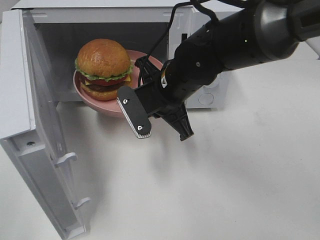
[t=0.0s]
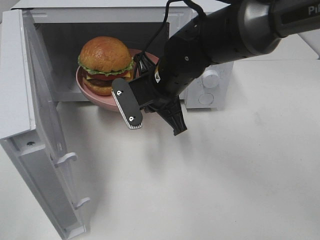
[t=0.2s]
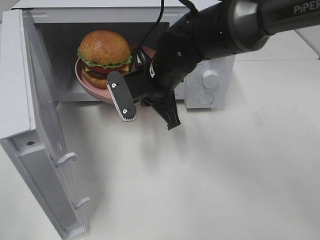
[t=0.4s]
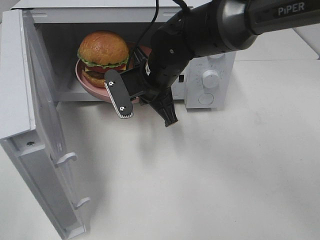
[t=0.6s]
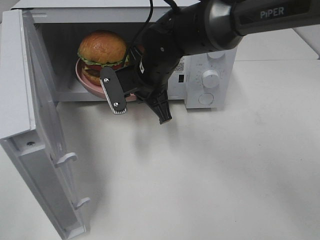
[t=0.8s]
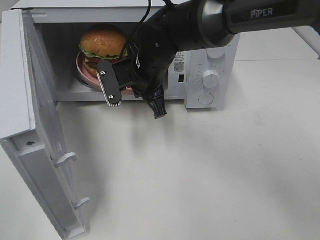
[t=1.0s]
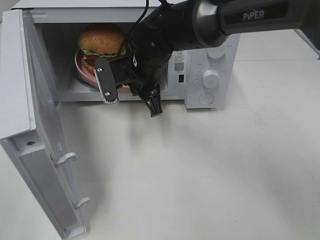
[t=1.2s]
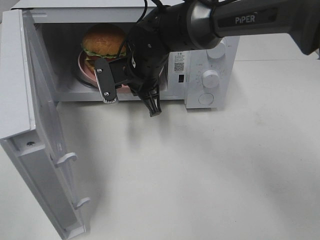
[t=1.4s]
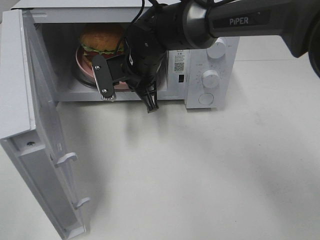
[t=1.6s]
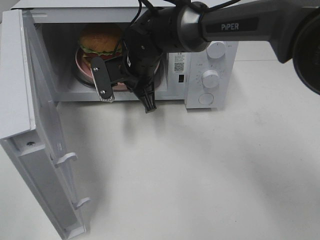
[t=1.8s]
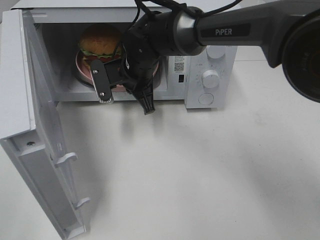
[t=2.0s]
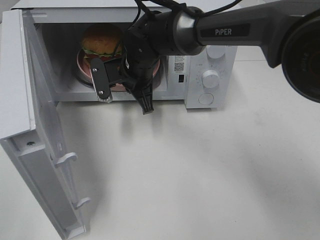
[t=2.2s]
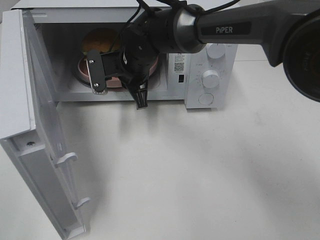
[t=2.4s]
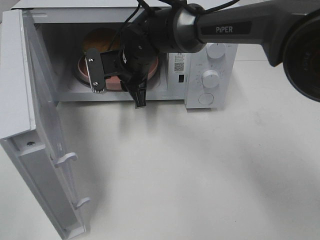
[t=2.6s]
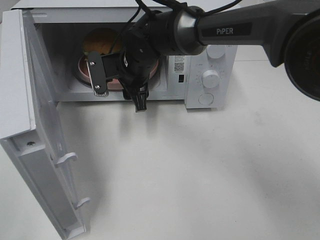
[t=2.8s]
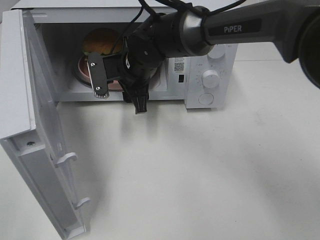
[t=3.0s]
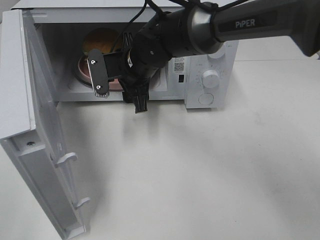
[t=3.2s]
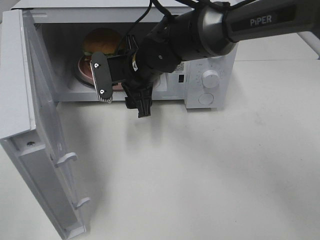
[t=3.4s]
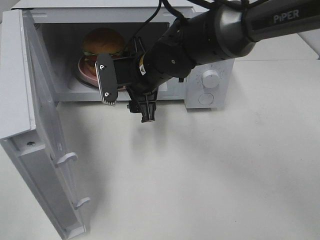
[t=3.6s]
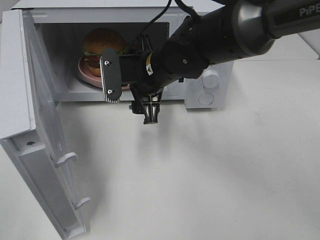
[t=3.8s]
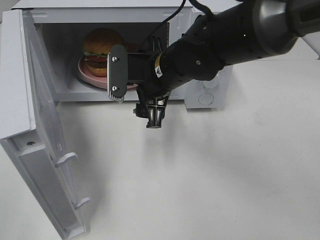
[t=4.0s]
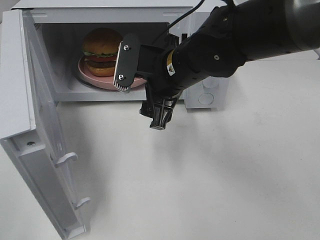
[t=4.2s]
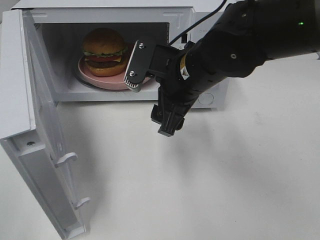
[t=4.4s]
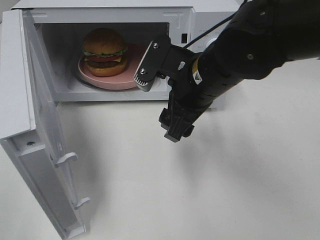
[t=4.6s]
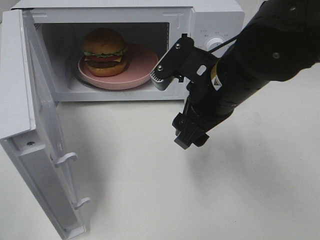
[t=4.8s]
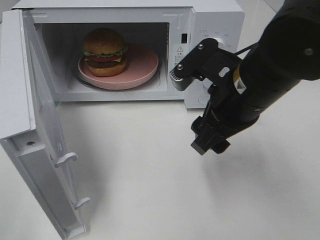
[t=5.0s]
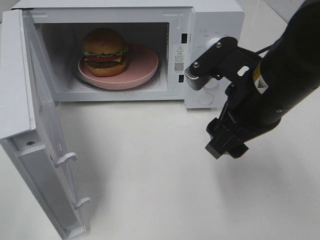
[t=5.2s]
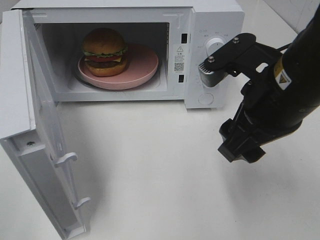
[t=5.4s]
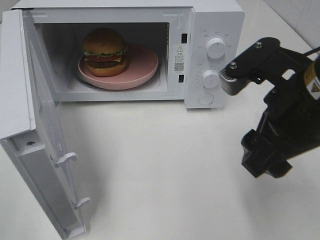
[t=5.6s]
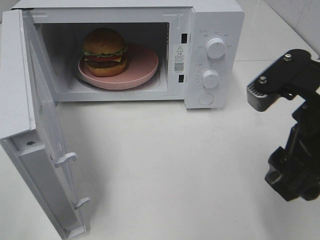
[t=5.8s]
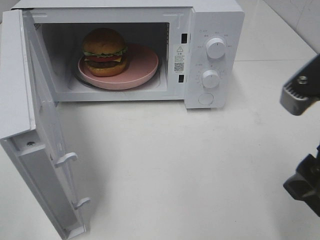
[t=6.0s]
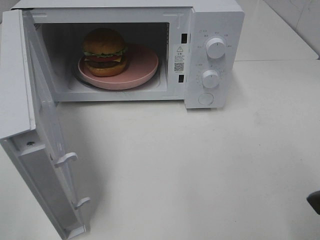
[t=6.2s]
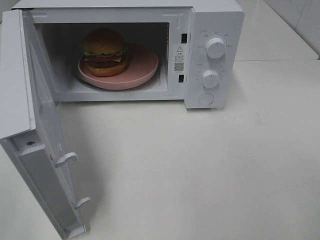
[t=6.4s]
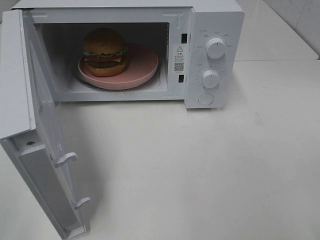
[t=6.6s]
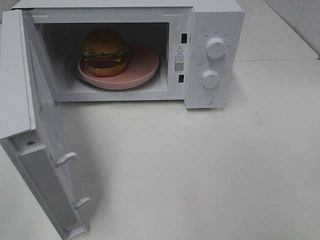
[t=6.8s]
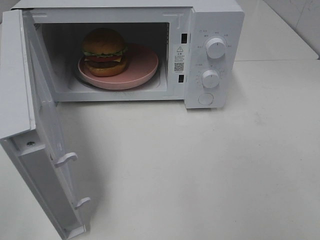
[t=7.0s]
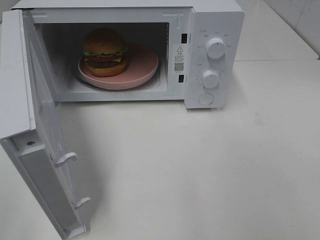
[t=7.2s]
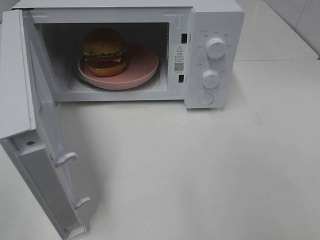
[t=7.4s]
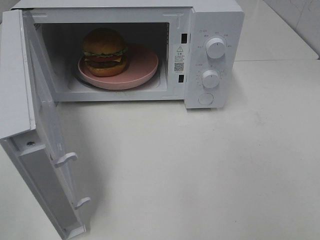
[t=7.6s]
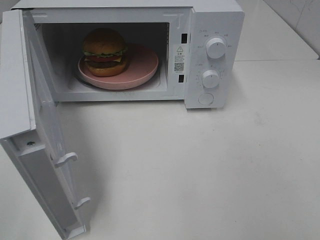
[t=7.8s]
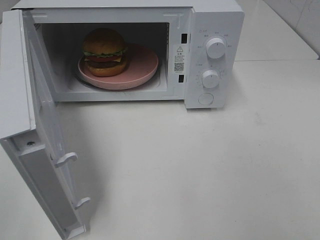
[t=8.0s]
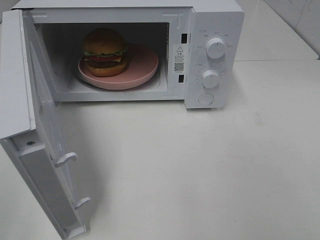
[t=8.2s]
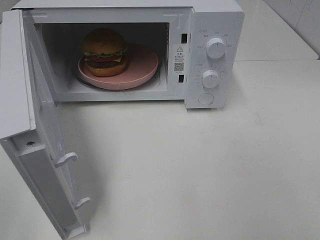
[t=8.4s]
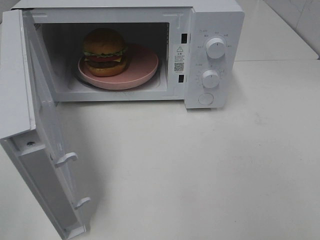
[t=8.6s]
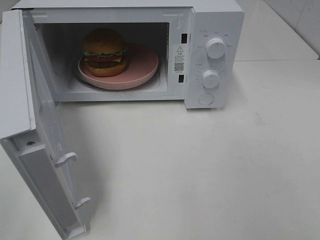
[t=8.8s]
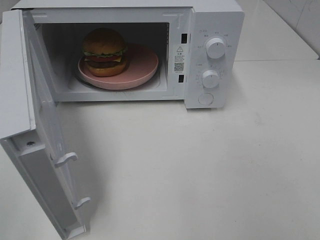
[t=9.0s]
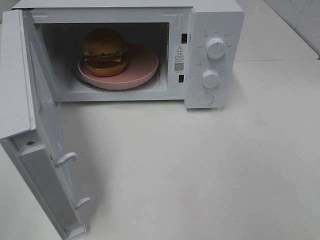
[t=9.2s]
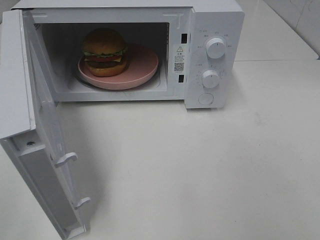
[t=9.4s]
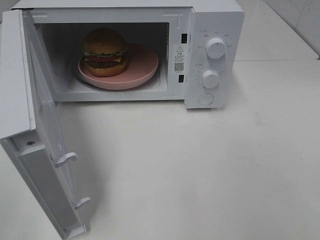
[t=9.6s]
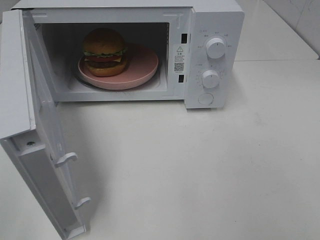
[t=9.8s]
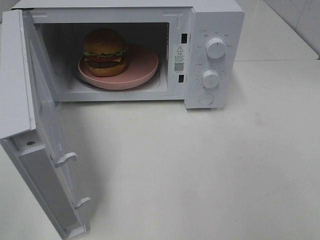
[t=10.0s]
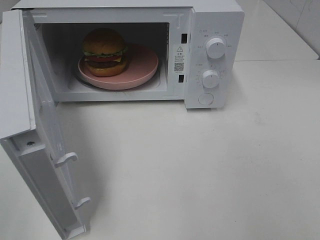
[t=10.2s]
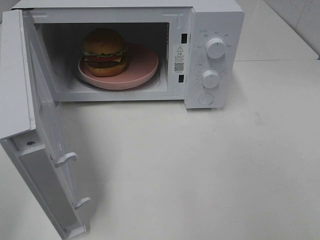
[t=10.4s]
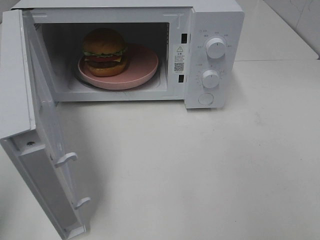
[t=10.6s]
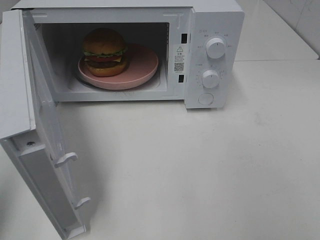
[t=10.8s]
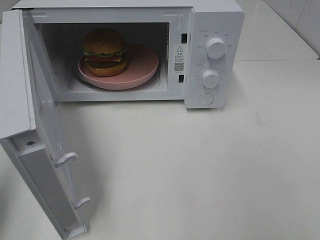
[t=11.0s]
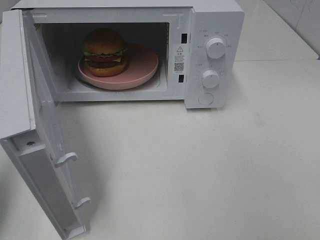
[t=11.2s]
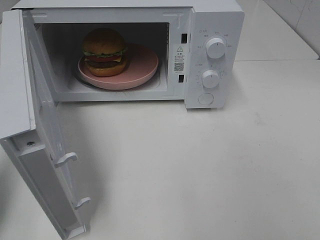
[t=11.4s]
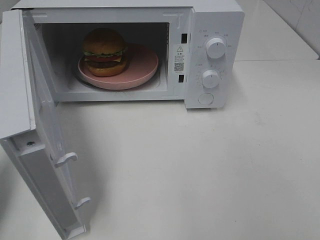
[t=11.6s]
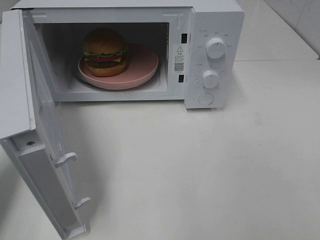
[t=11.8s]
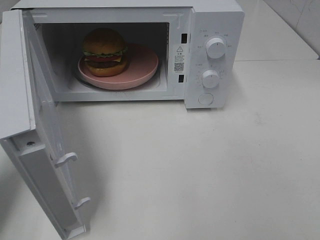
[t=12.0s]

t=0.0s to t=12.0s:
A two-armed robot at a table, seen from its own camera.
Task of the whole recording: Heat the burger.
Step, t=0.0s to t=2.6s: Right hand: place the plate in the microwave.
t=0.0s to t=1.6s: The right gripper travels forward and to the left by approximately 10 cm.
t=1.6s to t=3.0s: The right gripper opens its fingers.
t=3.0s to t=4.4s: The right gripper shifts about 15 cm backward and to the right.
t=4.4s to t=6.0s: The right gripper moves backward and to the right, roughly 20 cm.
t=6.0s to t=7.6s: The right gripper shifts some 15 cm backward and to the right.
t=7.6s to t=9.0s: The two grippers keep their place.
t=10.4s to t=12.0s: The left gripper is displaced forward and downward by approximately 20 cm, and closes up.

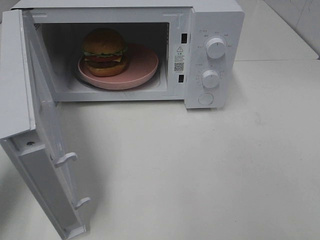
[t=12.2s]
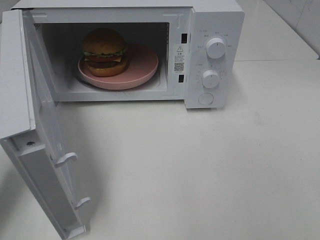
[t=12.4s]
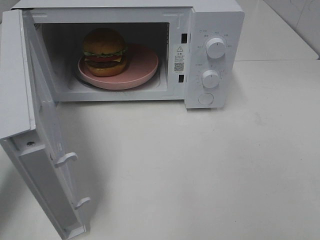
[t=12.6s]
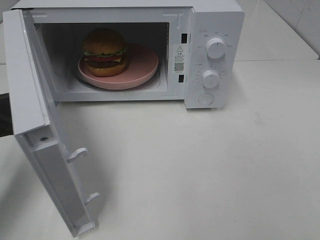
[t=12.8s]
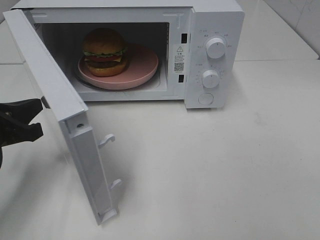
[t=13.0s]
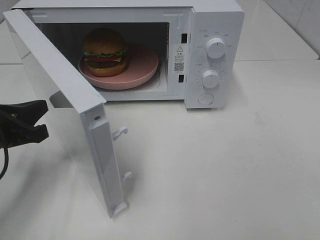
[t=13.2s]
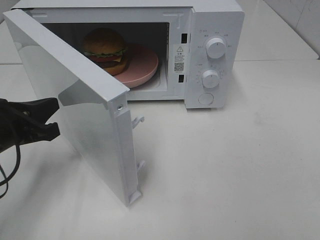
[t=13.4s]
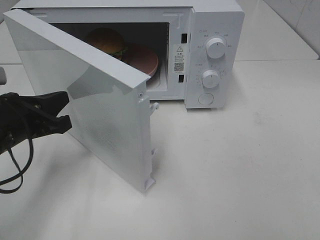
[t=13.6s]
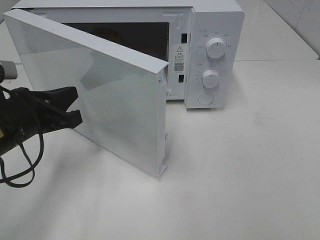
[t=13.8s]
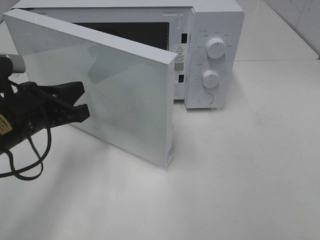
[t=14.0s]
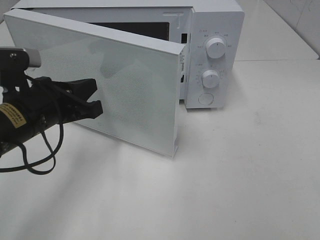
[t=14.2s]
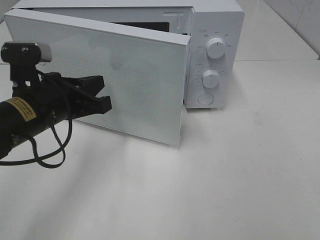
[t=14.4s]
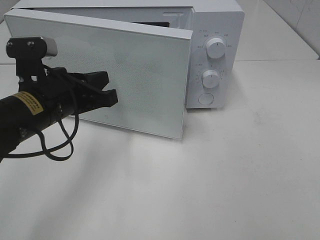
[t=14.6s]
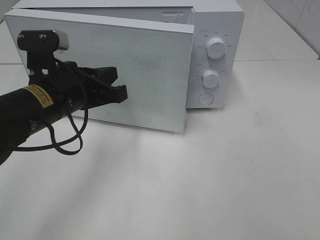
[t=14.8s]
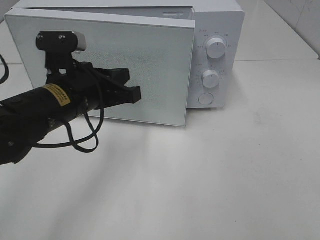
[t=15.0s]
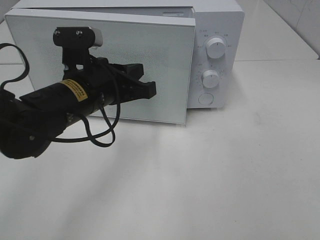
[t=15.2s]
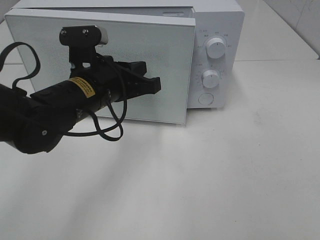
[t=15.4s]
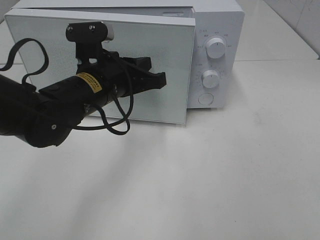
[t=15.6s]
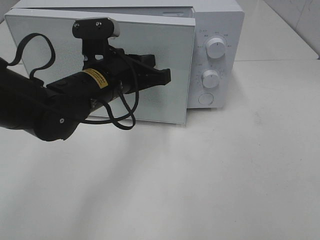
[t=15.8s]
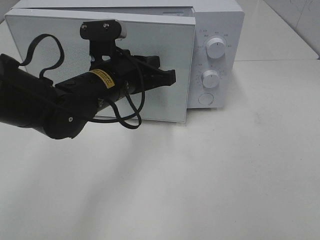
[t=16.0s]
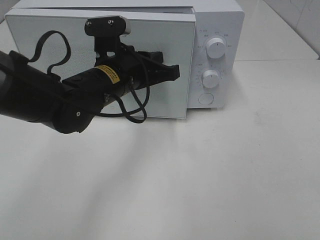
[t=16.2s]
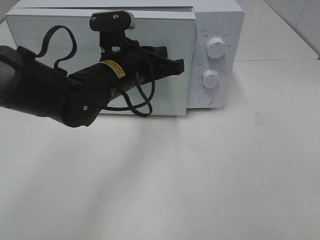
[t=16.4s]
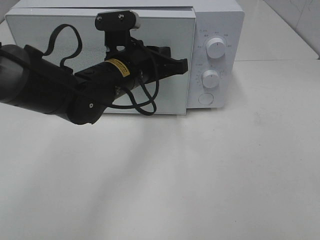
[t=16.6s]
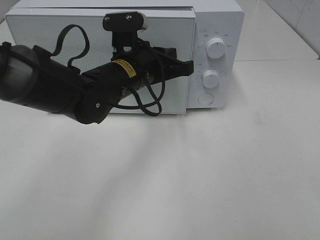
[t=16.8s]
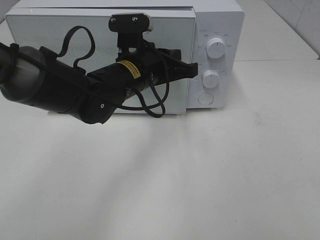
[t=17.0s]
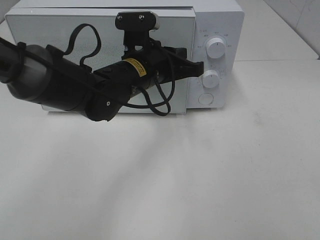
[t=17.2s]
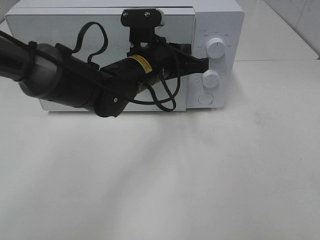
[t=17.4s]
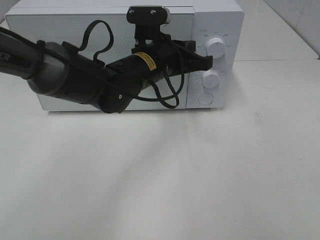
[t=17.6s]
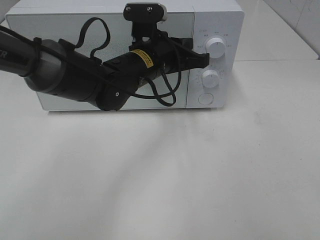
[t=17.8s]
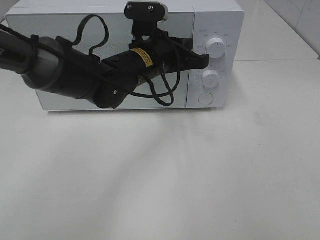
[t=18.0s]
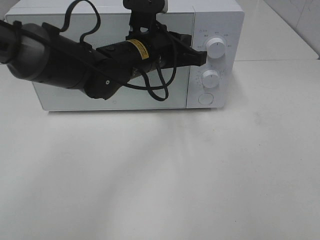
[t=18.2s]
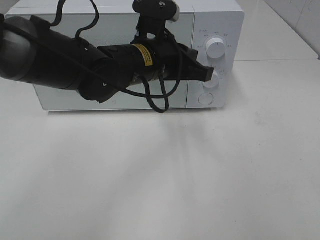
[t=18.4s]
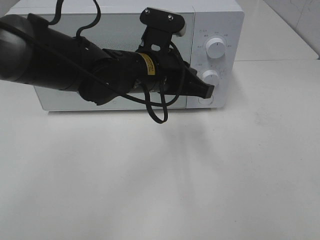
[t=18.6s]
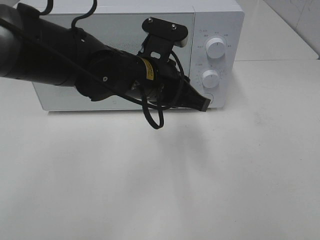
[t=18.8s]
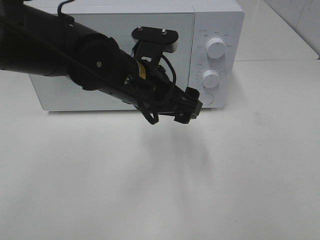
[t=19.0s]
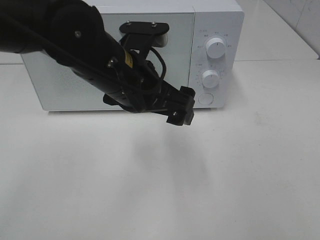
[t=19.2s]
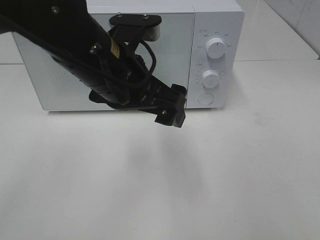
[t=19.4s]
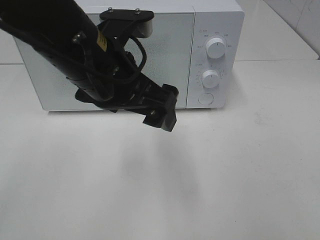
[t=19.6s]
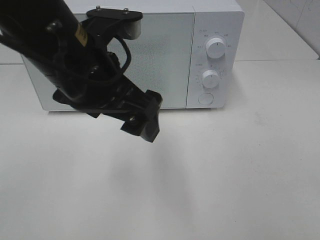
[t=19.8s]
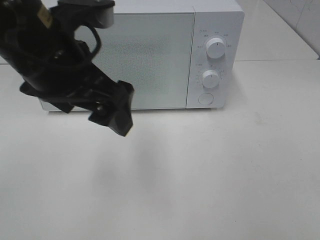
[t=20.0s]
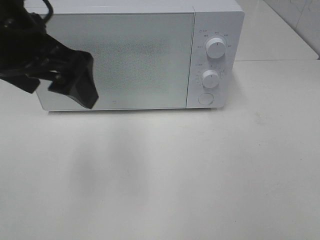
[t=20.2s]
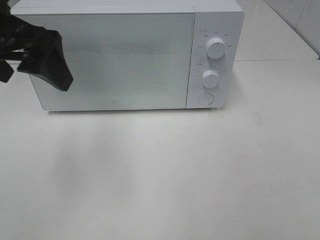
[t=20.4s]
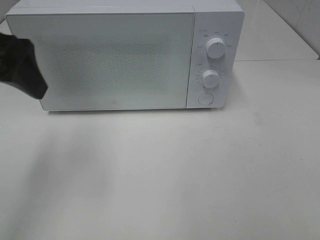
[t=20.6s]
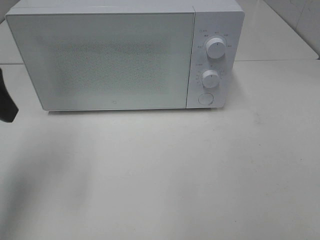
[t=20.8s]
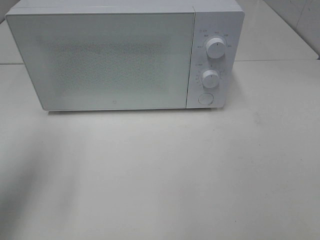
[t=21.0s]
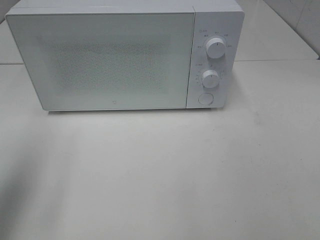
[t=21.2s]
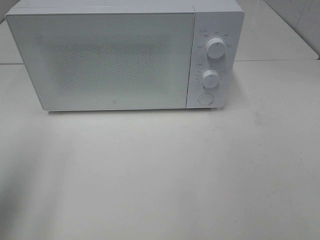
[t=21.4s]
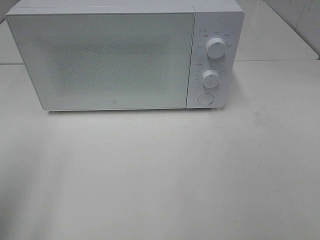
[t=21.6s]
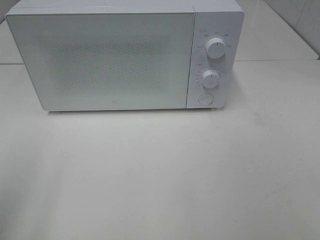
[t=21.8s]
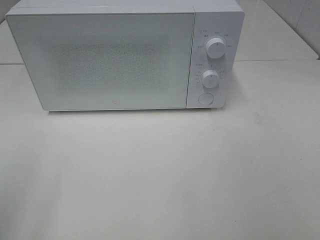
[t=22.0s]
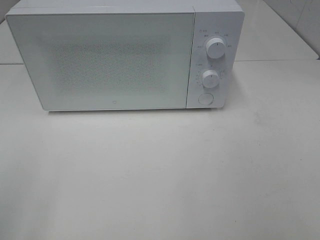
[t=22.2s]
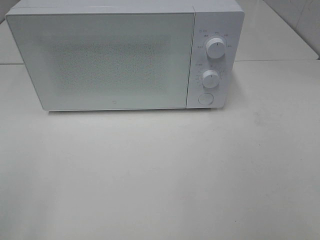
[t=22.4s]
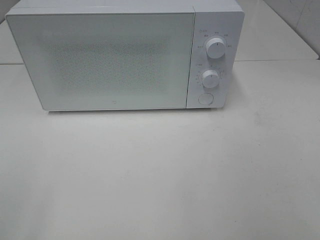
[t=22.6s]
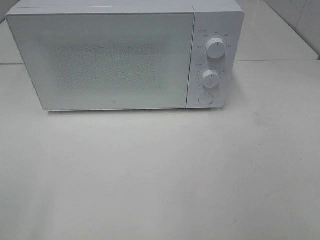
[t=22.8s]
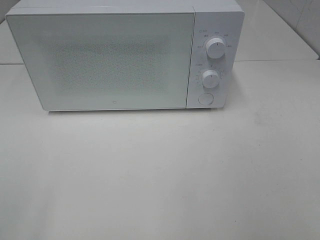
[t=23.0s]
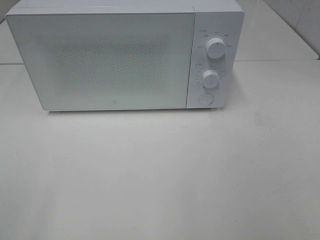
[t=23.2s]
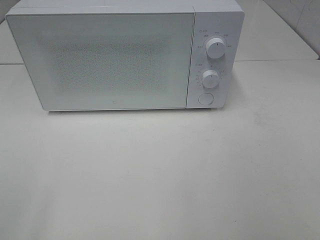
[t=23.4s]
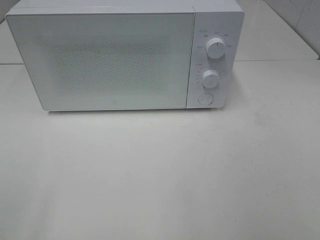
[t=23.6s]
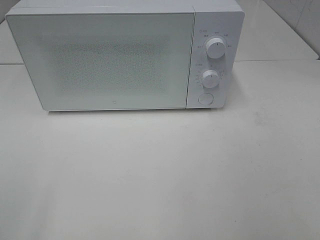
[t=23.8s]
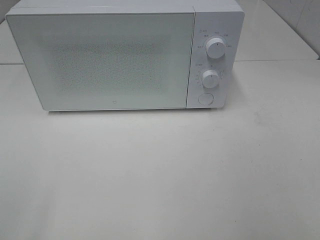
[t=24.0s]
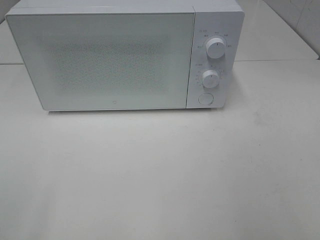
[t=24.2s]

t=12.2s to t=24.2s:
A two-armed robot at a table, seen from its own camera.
Task of the whole recording: Heat the burger.
Step, t=12.2s to t=18.2s: Left hand: close the microwave door.
t=12.2s to t=13.8s: The left gripper shifts some 10 cm to the right.
t=13.8s to t=15.2s: The left gripper heads to the right, covering some 10 cm.
t=15.2s to t=16.6s: The left gripper shifts approximately 5 cm to the right and forward.
t=16.6s to t=18.2s: The grippers stay close to where they were, moving slightly.
t=18.2s to t=19.8s: The left gripper travels backward, upward and to the left by roughly 15 cm, and opens.
t=19.8s to t=21.2s: The left gripper heads to the left, covering roughly 20 cm.
t=21.2s to t=22.6s: The left gripper travels backward by some 15 cm.
